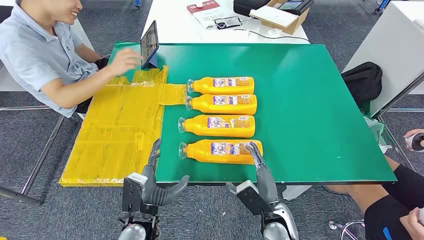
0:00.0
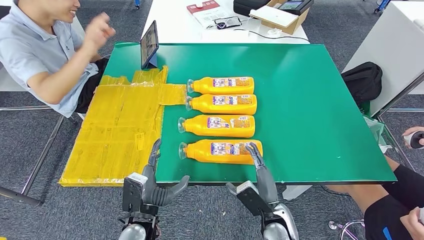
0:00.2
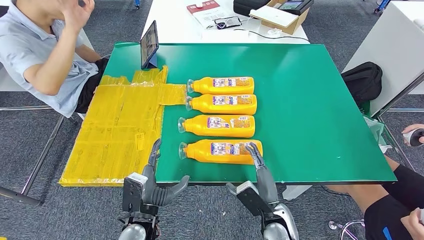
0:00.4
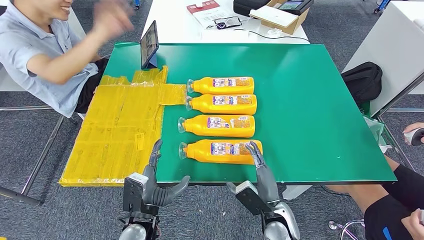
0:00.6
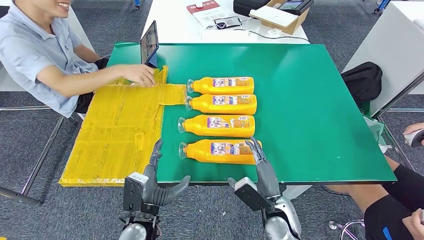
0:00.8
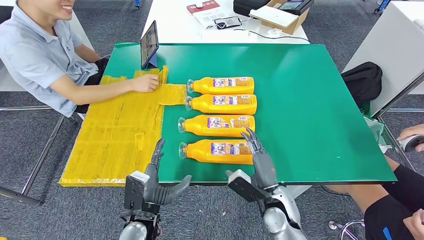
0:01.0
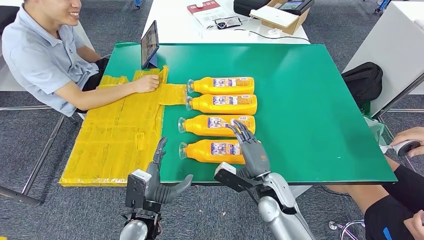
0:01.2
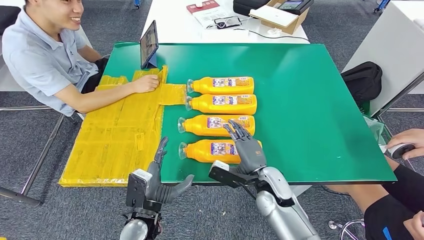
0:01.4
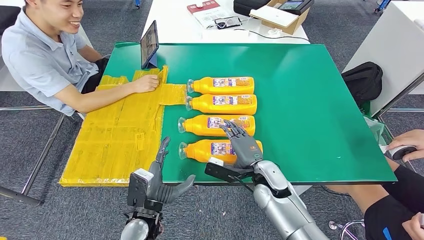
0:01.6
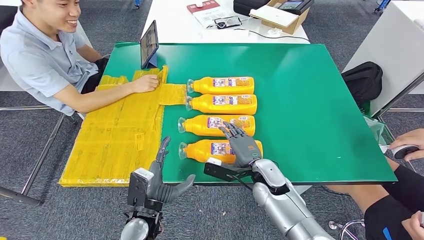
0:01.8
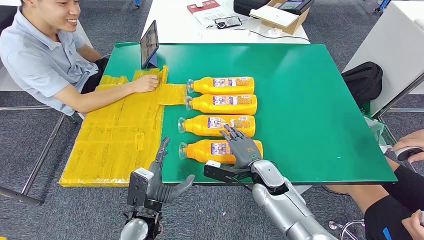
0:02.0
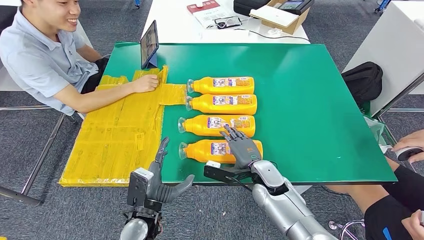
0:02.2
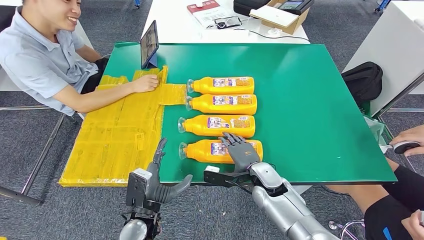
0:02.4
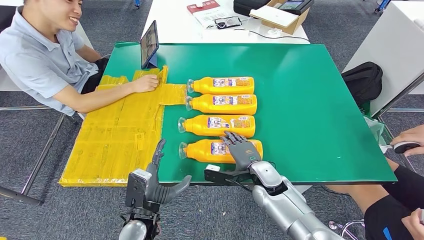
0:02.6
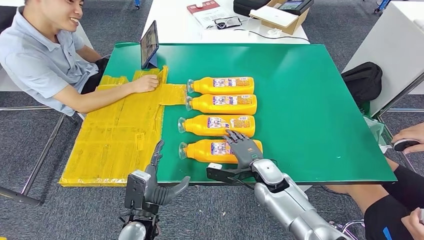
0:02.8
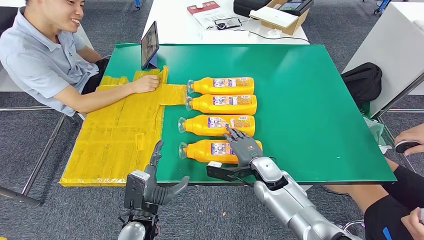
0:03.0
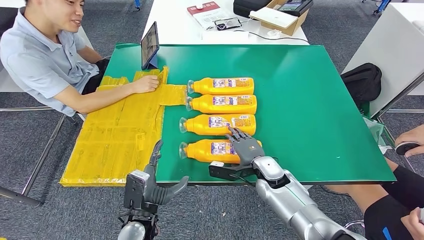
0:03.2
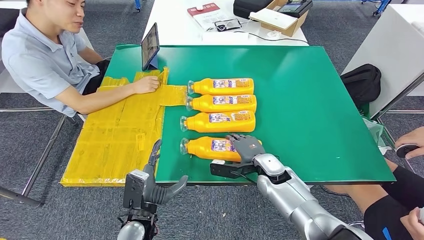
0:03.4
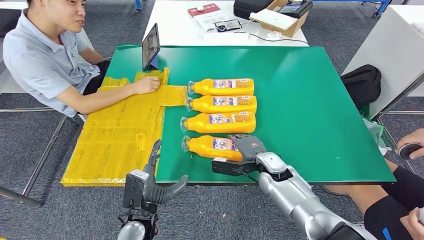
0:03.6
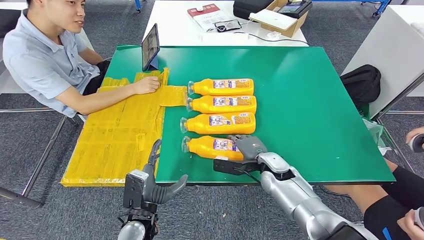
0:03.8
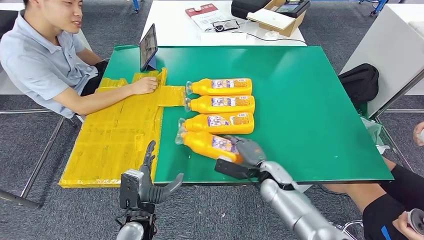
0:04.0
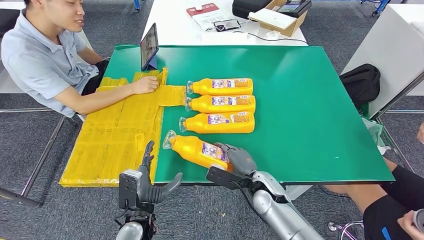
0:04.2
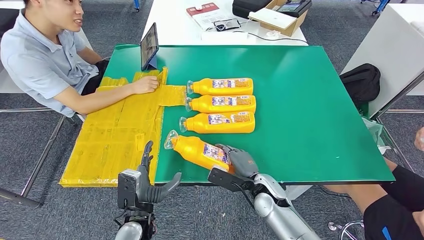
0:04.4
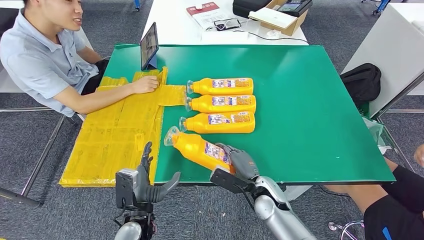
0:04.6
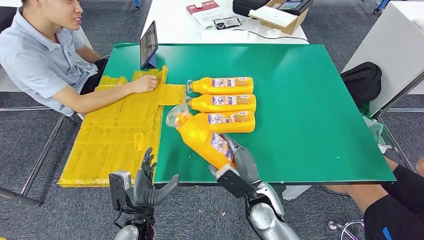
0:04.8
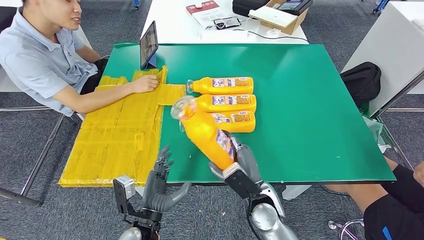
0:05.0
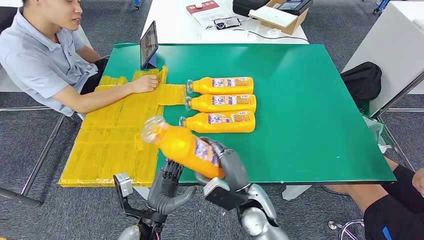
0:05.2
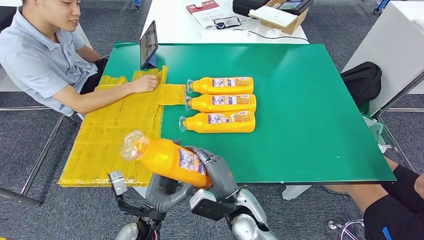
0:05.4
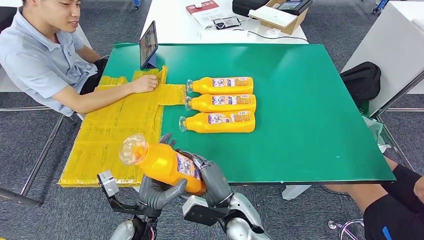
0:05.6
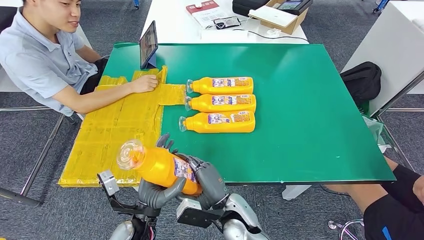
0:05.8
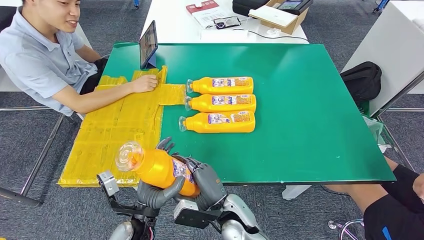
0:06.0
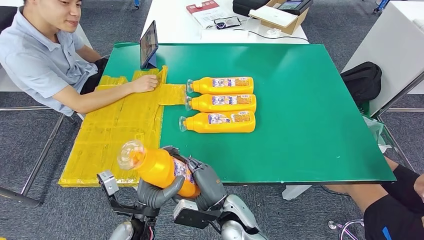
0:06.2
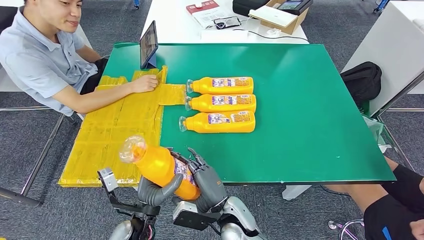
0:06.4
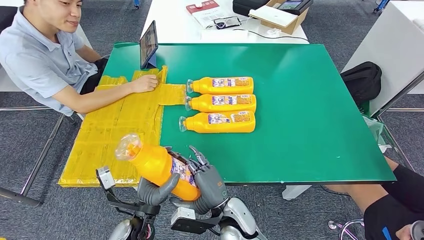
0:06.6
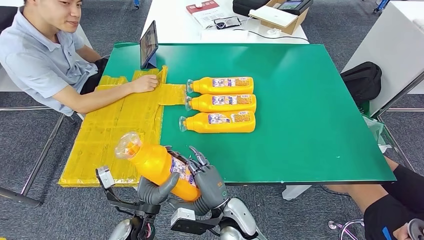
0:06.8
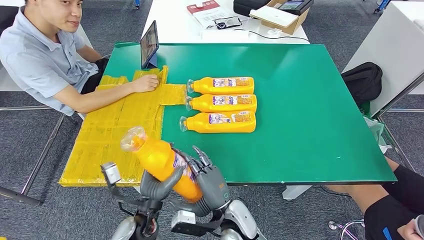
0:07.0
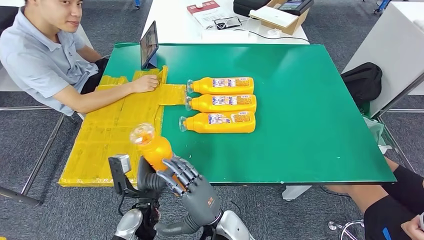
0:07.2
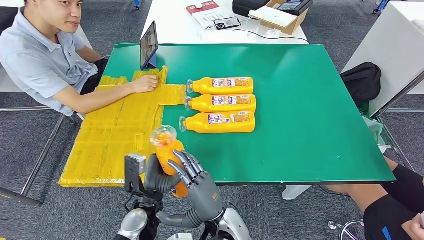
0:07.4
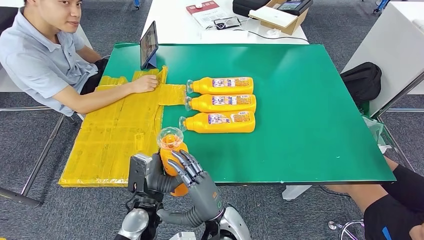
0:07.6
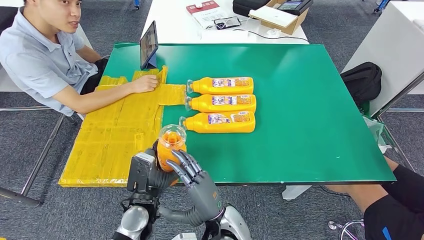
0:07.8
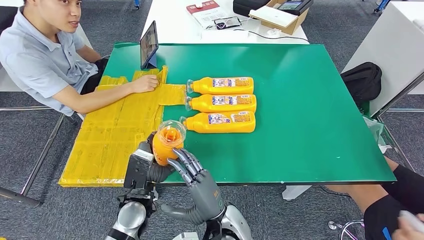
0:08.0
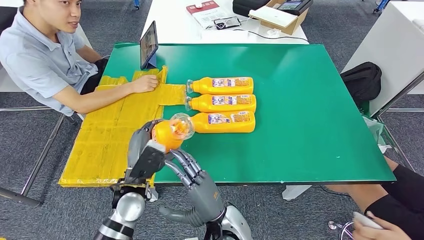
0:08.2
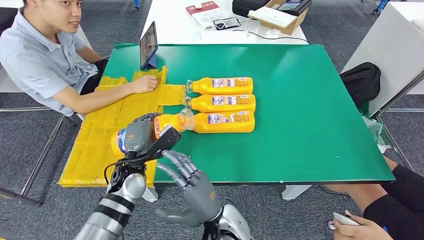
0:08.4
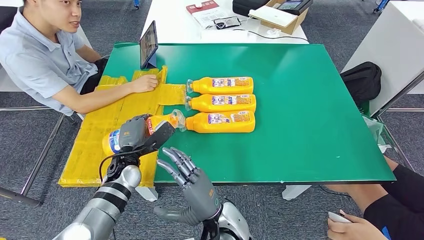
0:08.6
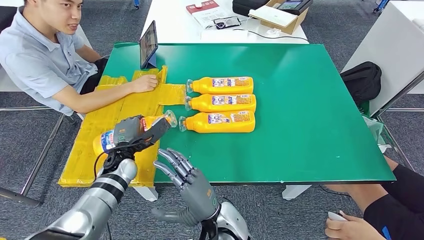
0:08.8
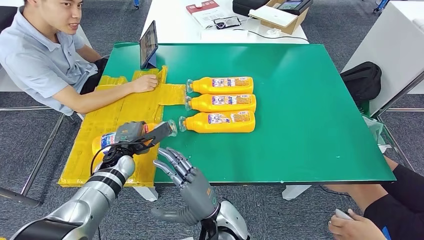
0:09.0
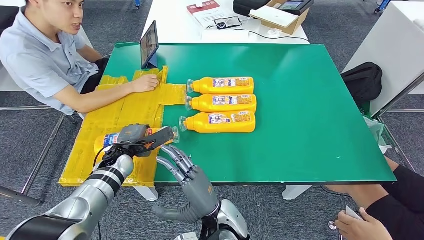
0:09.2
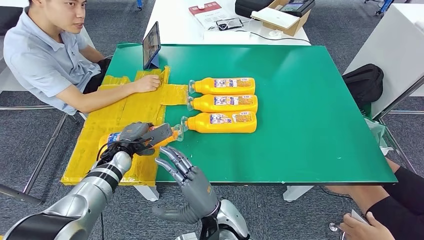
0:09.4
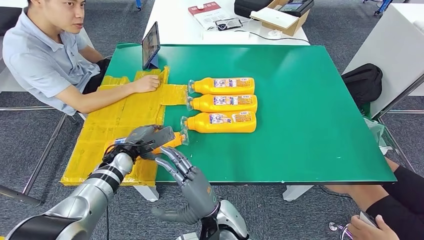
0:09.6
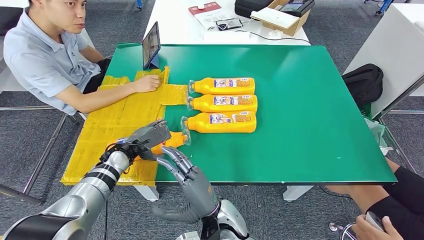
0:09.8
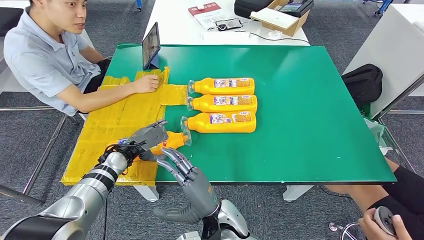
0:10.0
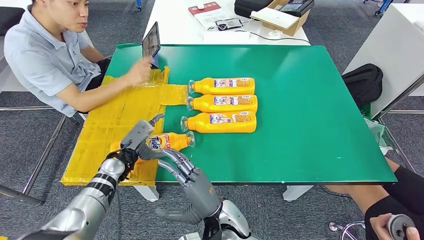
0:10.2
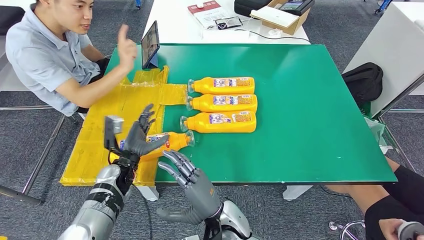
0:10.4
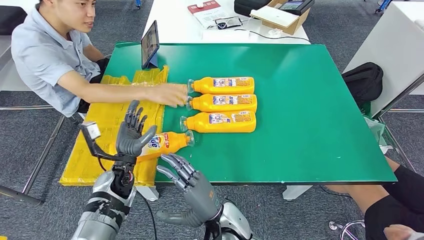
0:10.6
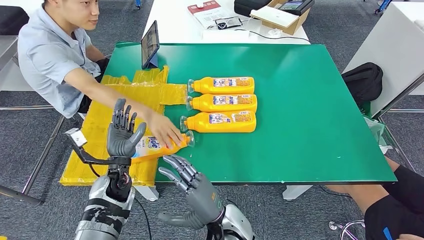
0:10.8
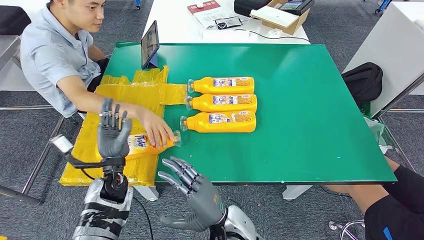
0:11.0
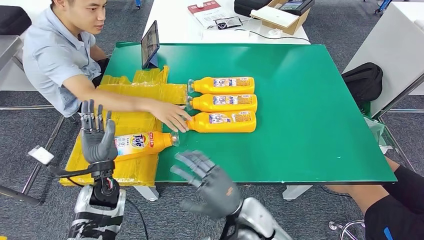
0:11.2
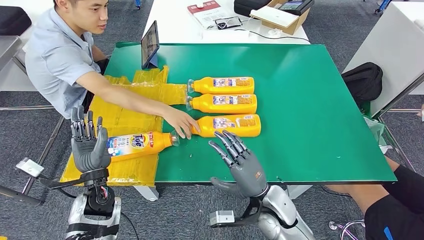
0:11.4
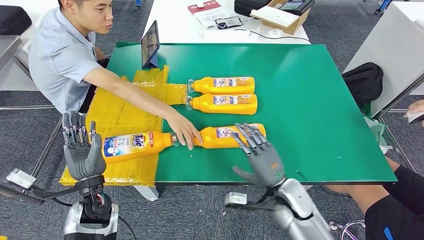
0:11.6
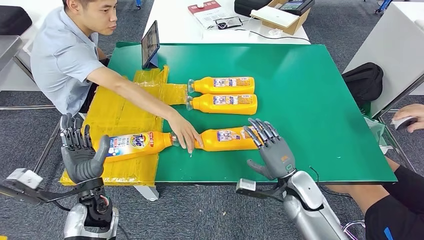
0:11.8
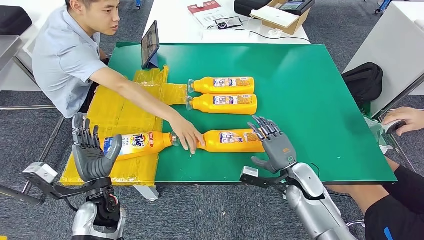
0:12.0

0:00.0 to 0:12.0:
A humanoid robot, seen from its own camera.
Step, 0:00.0 to 0:06.6: Take the fast-moving consumer goods bottle from the table.
Step, 0:06.8 to 0:10.8: Flip the fast-moving consumer goods bottle to the front side.
0:07.6 to 0:09.0: The left hand moves forward and to the left, some 20 cm.

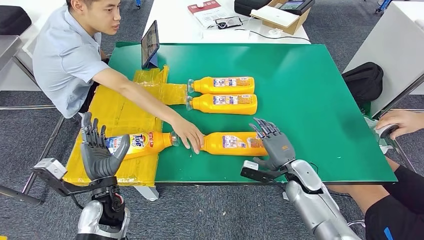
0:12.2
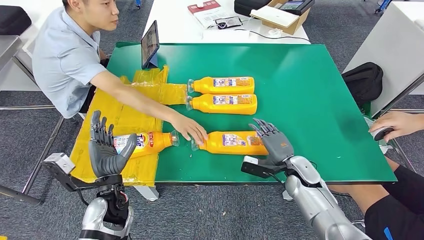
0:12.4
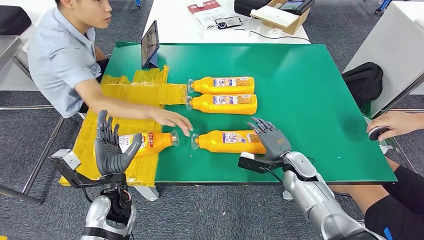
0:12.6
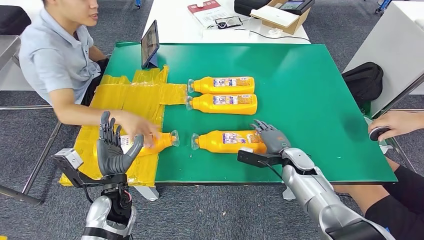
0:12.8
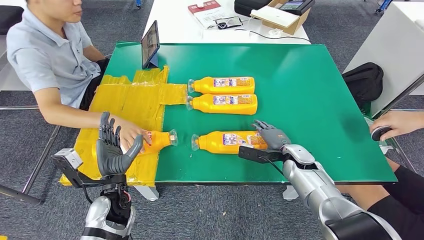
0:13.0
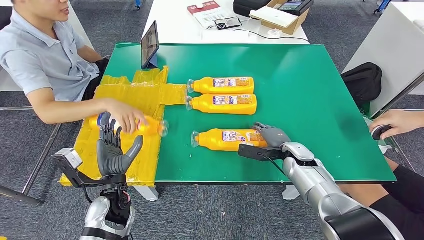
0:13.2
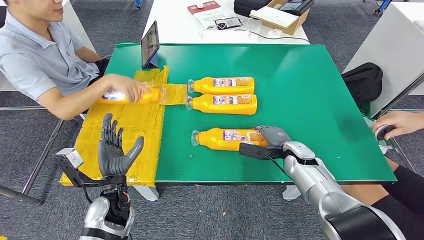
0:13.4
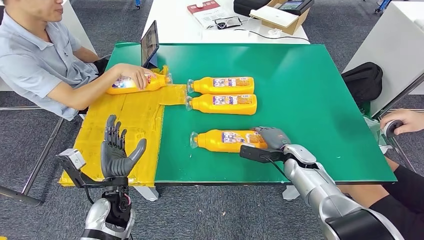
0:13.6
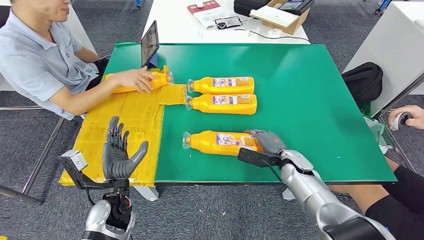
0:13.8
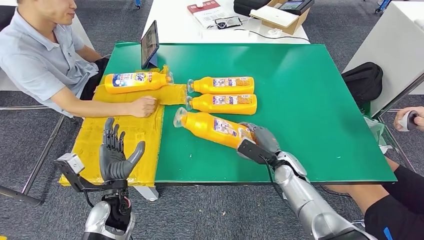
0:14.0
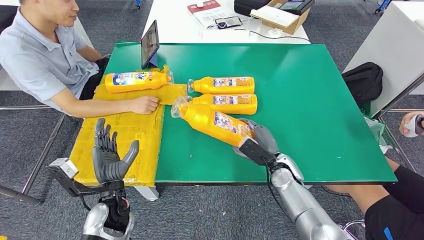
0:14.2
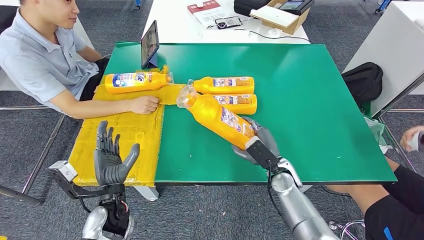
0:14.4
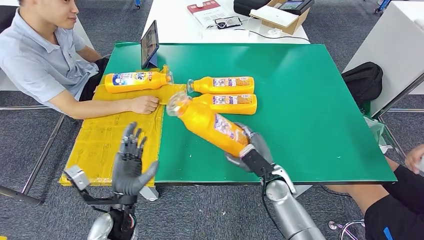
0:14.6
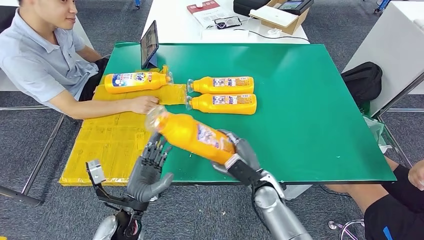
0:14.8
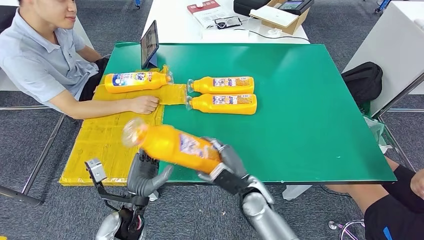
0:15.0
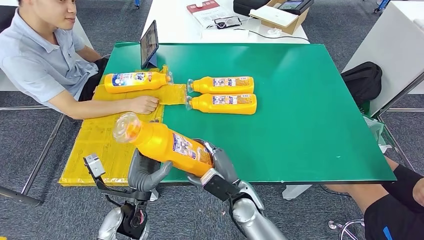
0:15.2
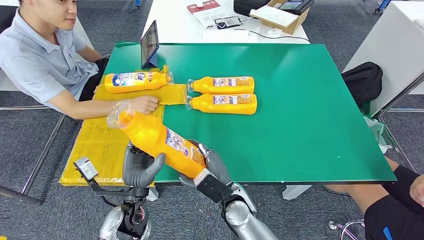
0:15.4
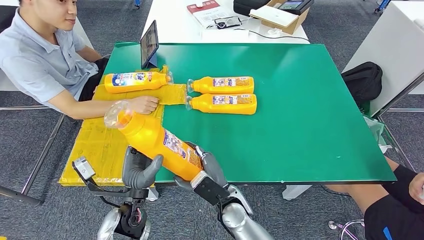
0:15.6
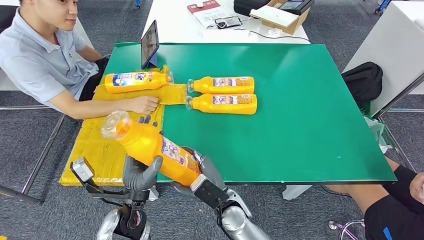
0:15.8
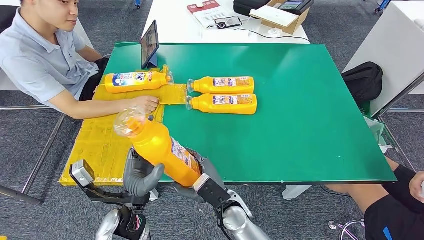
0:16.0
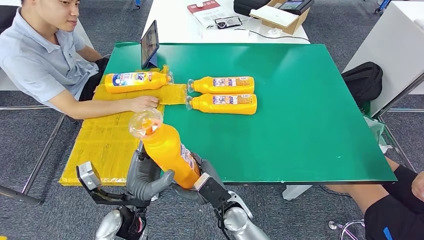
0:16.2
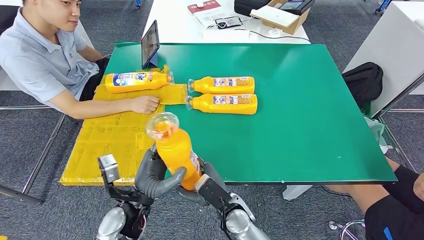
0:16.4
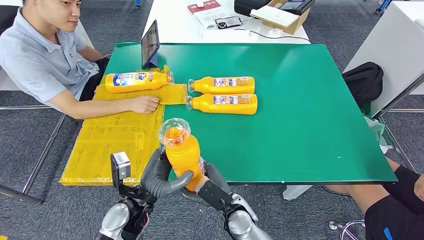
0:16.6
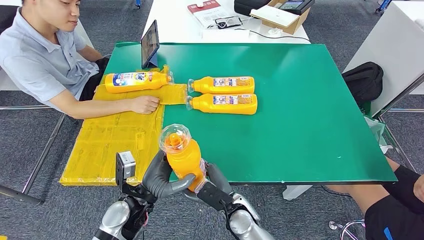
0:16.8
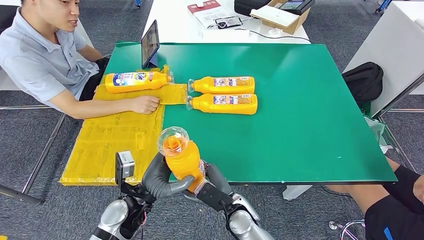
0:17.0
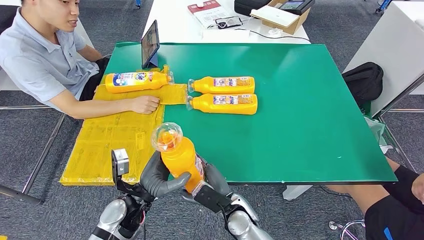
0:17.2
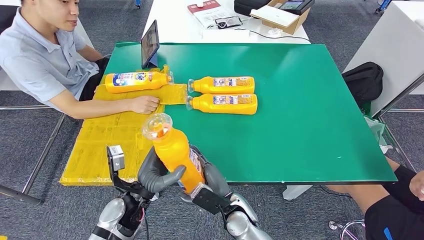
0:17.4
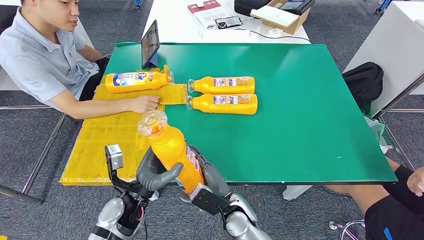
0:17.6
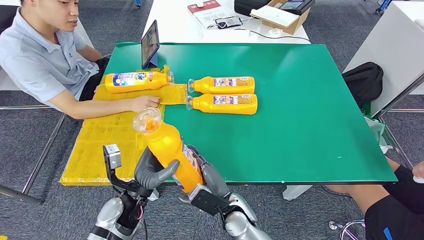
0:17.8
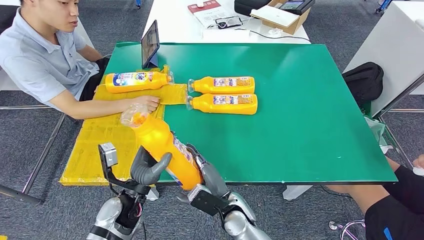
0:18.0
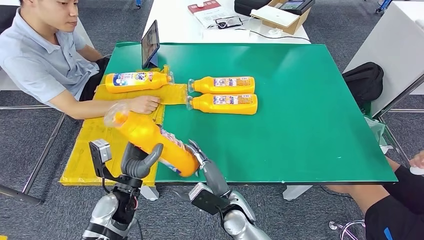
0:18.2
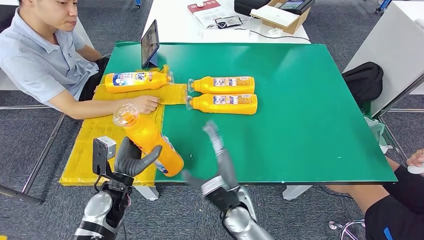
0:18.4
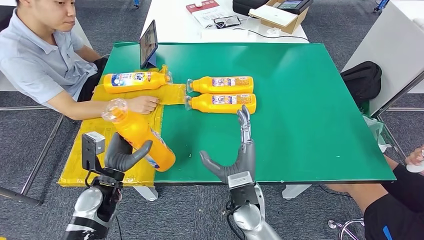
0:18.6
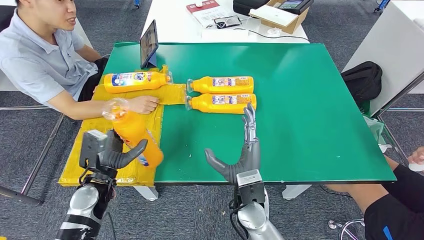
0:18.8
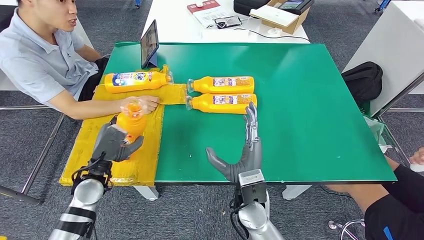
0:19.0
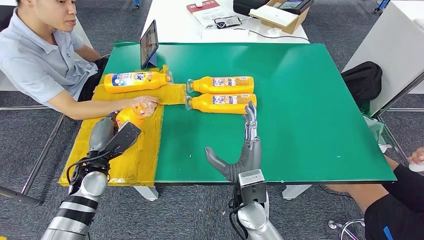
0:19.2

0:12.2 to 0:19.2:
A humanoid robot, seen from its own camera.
Step, 0:12.2 to 0:15.6: Pick up the fast-moving consumer goods bottle from the table.
0:15.0 to 0:16.4: The right hand travels to the left by about 5 cm.
0:16.4 to 0:17.8: There are only small adjustments of the hands.
0:17.8 to 0:19.2: The left hand is displaced to the left and forward by some 15 cm. The right hand travels upward by about 10 cm.
